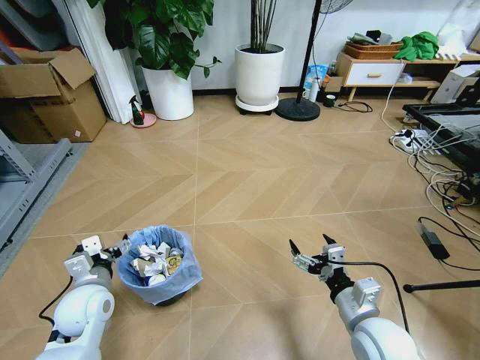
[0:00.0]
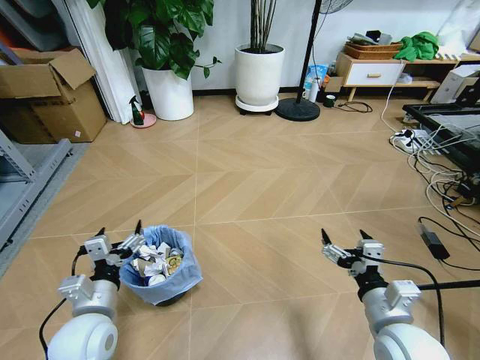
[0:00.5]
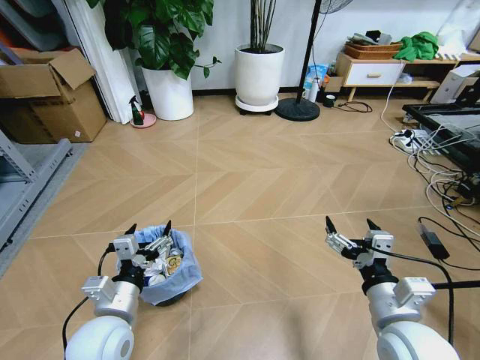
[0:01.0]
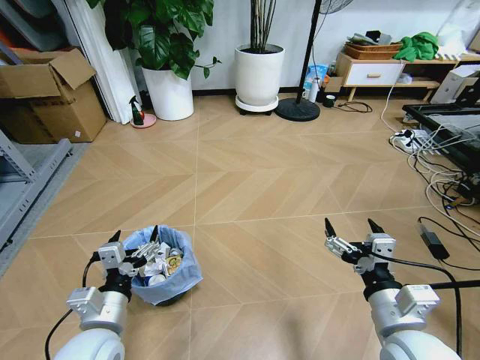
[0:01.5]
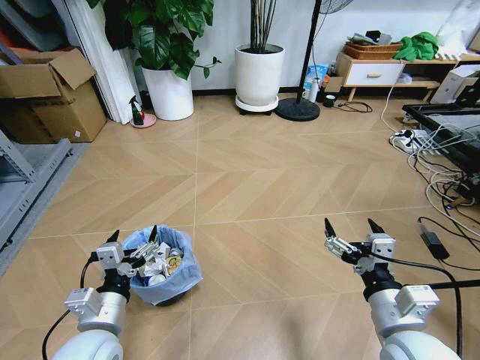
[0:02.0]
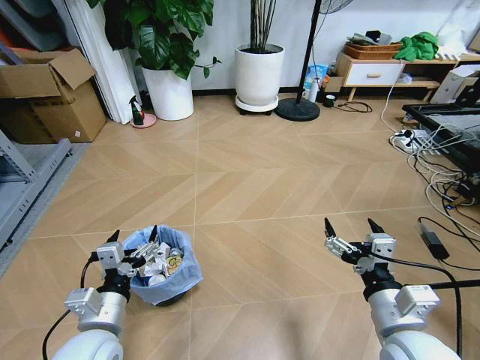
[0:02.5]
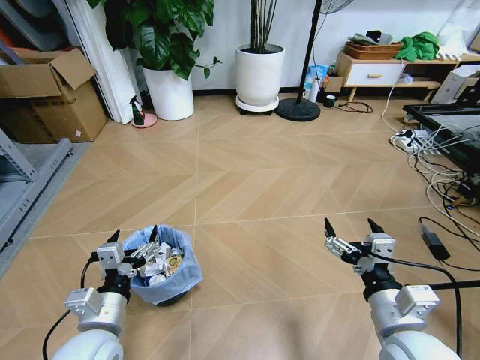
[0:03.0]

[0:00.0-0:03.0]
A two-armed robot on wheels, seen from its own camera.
Task of the whole recording: Pick up the trash bin and place the garbage on the floor into it.
0:00.0 to 0:01.5: The right gripper travels upward by some 10 cm; the left gripper is displaced backward and to the right by roughly 10 cm.
0:01.5 to 0:03.0: Neither gripper changes place.
